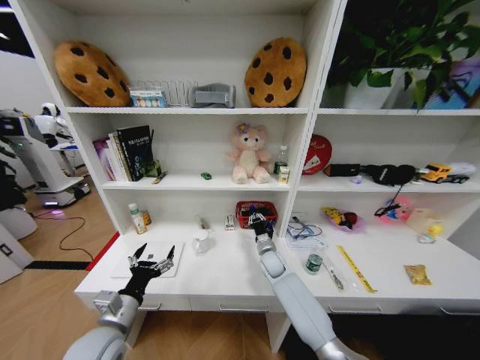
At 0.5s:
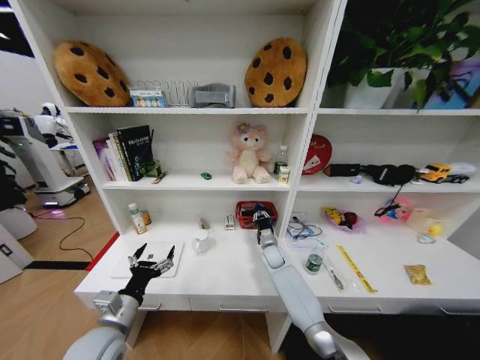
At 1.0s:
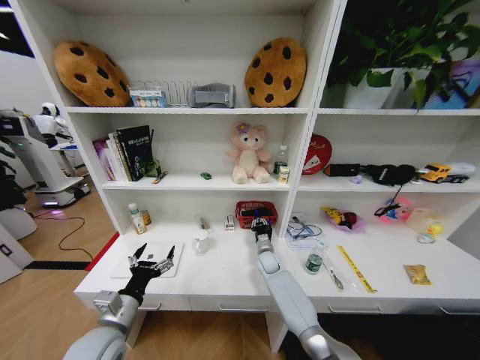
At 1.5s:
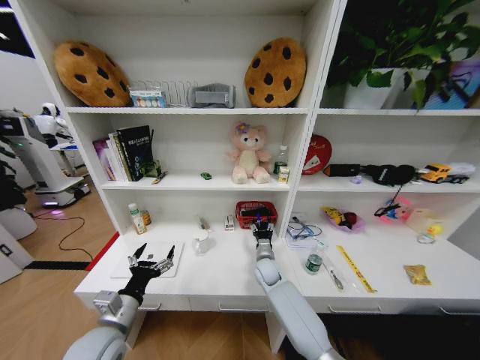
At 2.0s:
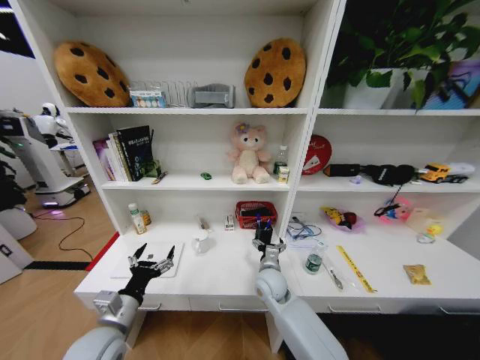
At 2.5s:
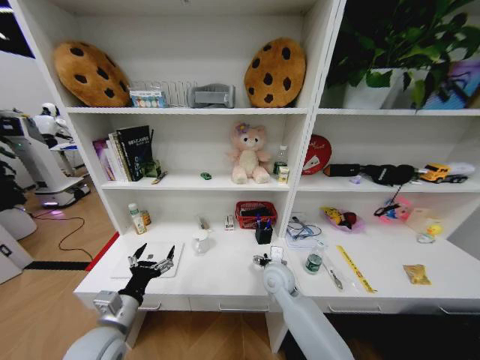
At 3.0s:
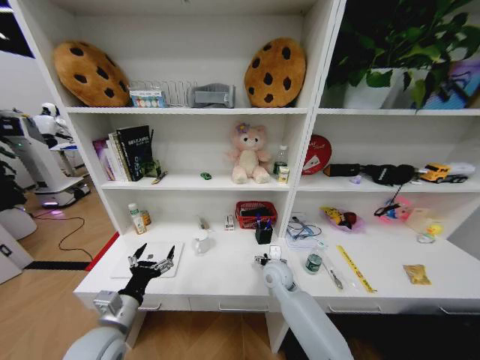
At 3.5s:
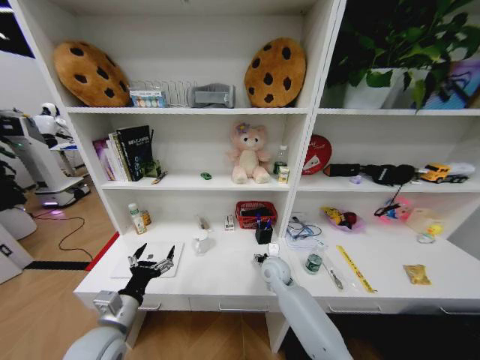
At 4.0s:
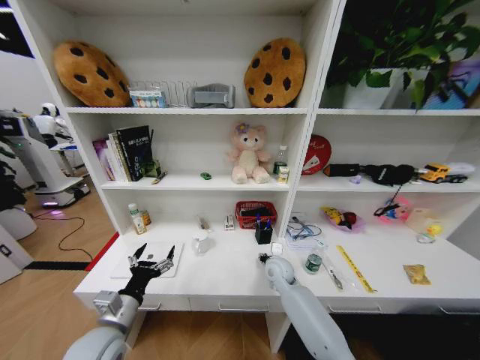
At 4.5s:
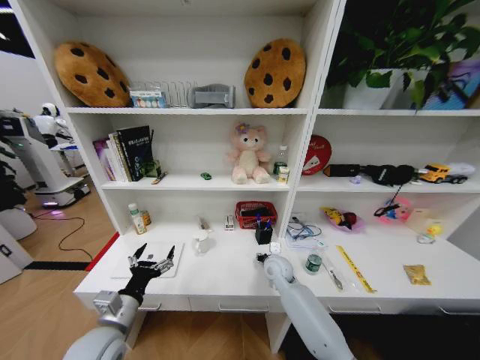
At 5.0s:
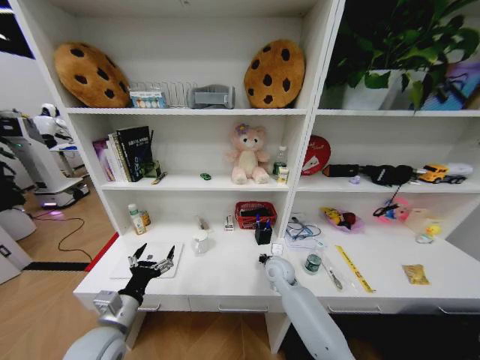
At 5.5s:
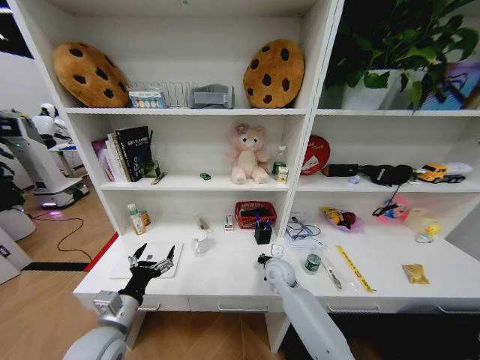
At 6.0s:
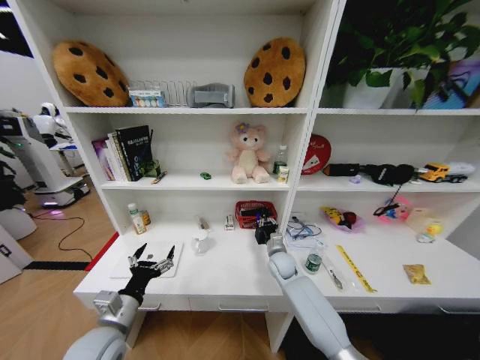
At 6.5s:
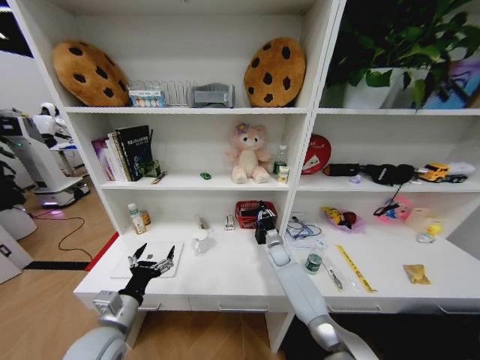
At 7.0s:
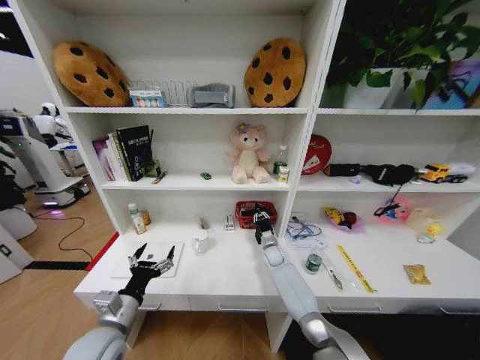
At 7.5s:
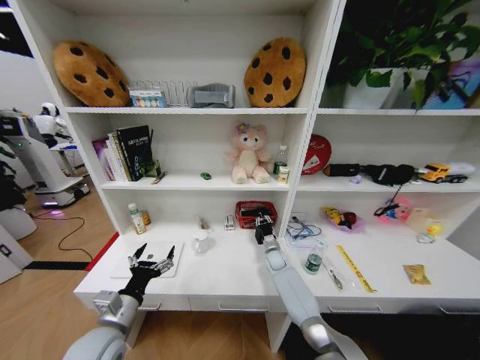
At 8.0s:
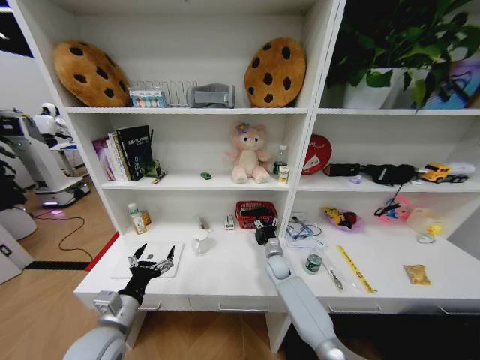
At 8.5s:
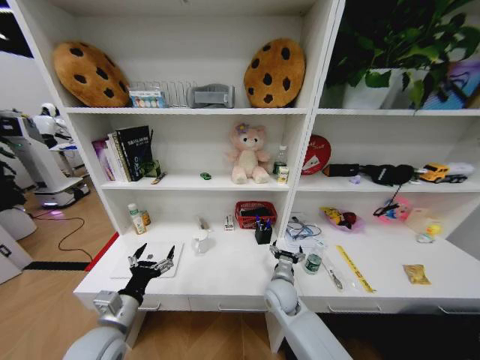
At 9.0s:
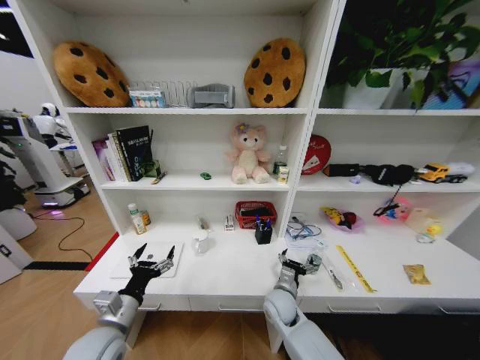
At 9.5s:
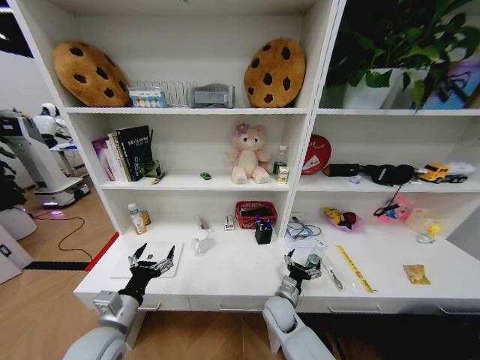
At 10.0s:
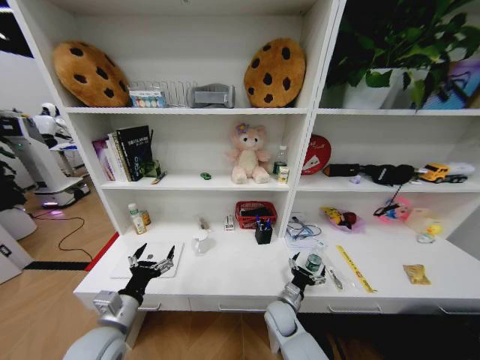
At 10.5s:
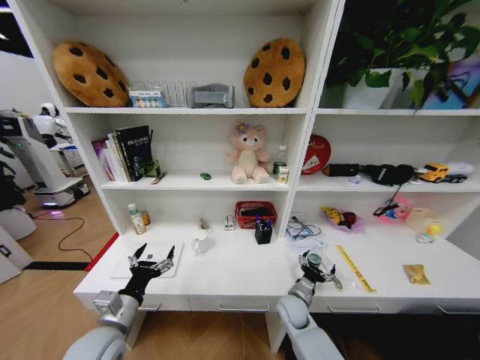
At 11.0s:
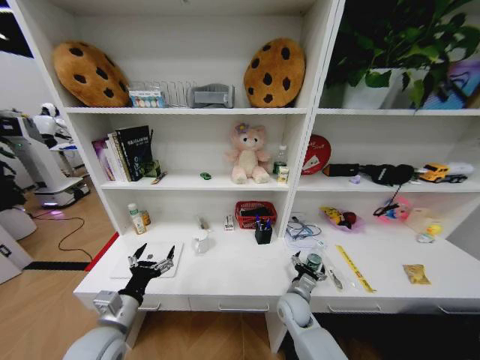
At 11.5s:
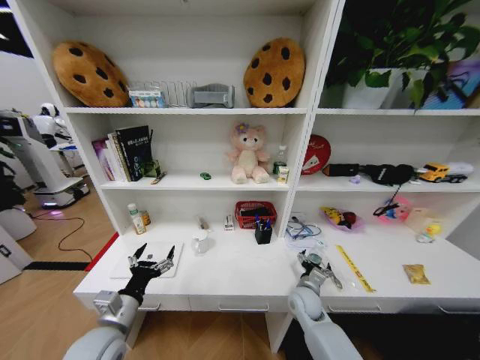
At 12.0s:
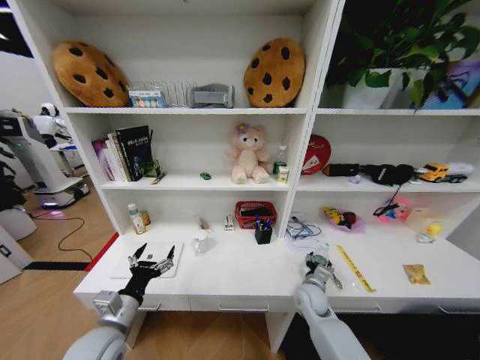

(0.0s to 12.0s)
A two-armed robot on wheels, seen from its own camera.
Task of the whole recording: Organize the objects on the table.
0.0s - 2.0s: The right gripper shifts about 10 cm backward, and opens up.
2.0s - 4.0s: The right gripper travels forward by approximately 5 cm, and closes its fingers.
4.0s - 6.0s: The right gripper closes.
6.0s - 8.0s: The right gripper opens its fingers.
8.0s - 10.0s: The right gripper travels backward by about 15 cm.
10.0s - 12.0s: The right gripper shifts some 10 cm to the right and upward.

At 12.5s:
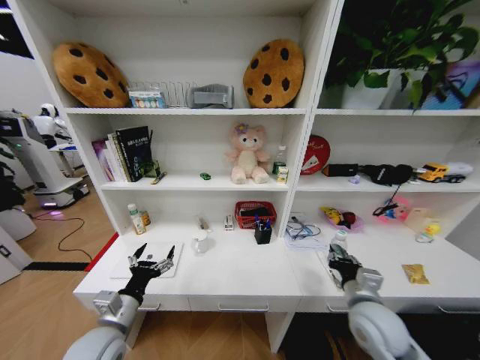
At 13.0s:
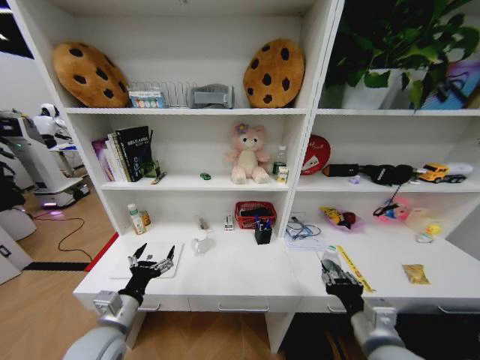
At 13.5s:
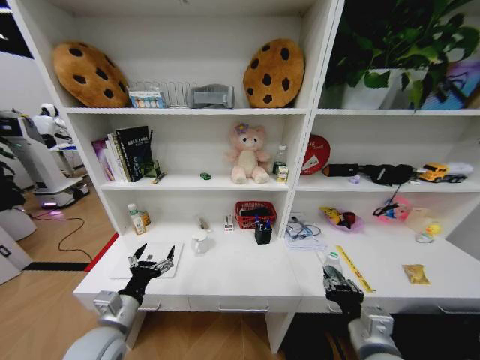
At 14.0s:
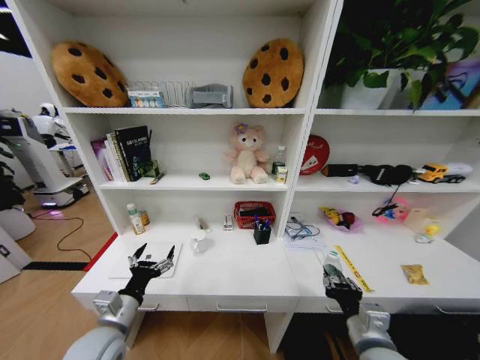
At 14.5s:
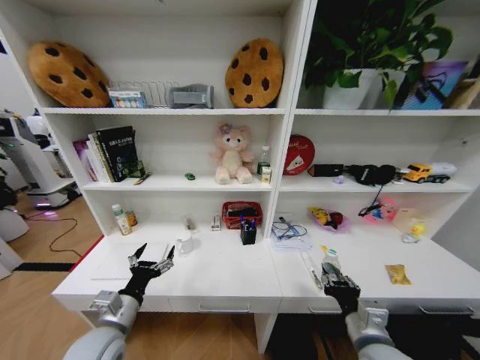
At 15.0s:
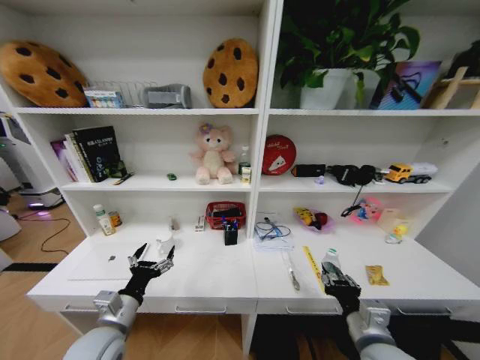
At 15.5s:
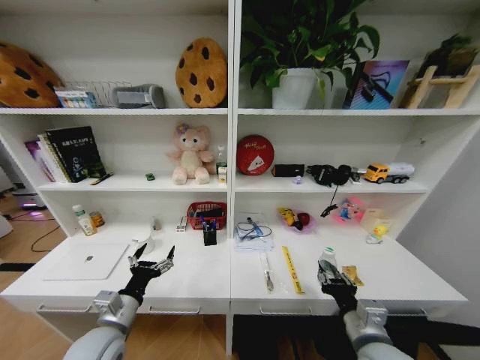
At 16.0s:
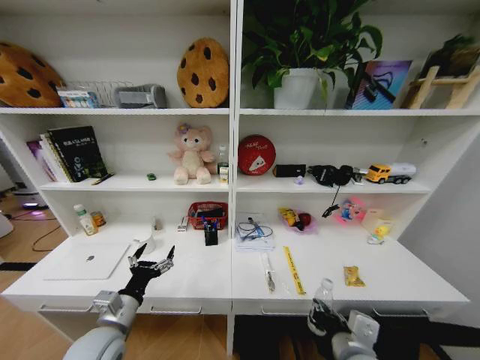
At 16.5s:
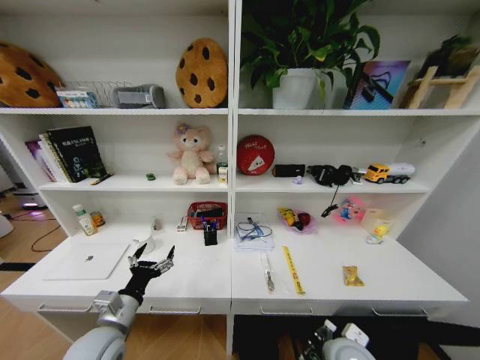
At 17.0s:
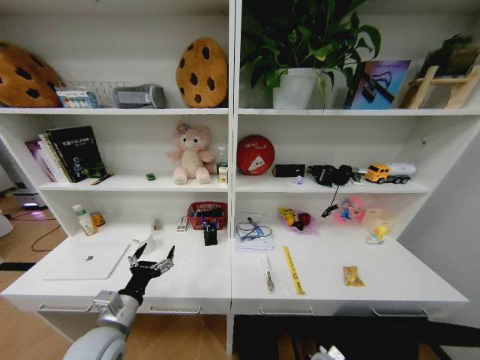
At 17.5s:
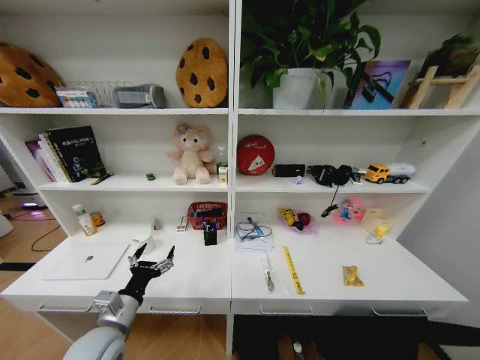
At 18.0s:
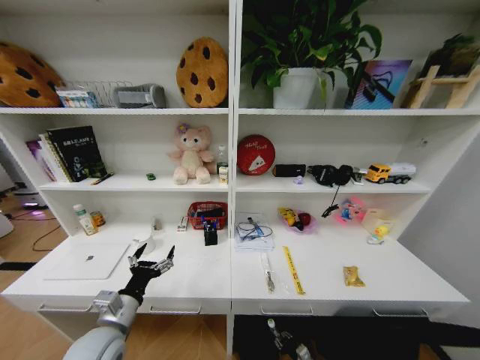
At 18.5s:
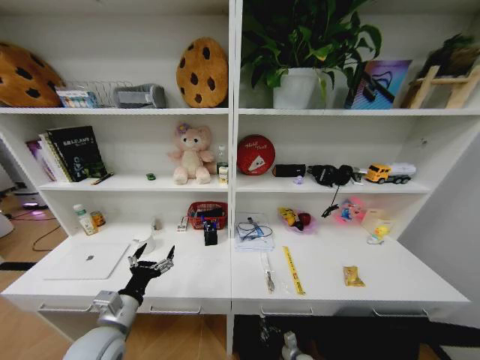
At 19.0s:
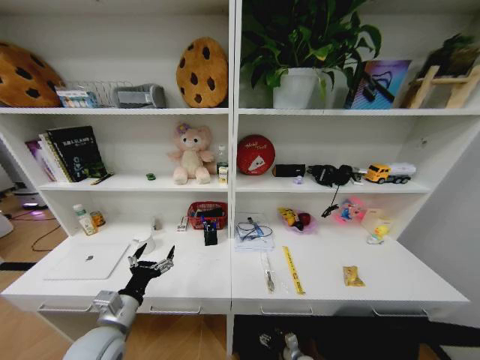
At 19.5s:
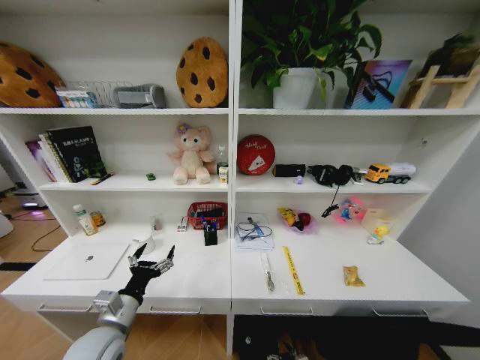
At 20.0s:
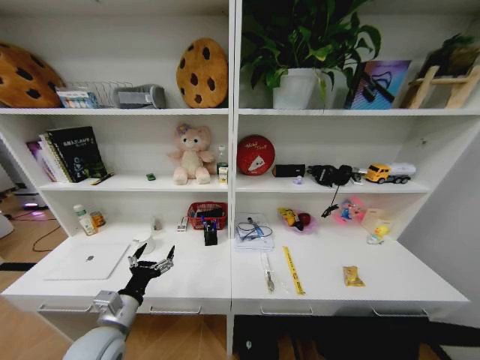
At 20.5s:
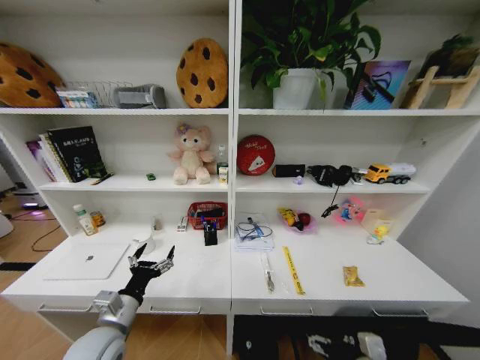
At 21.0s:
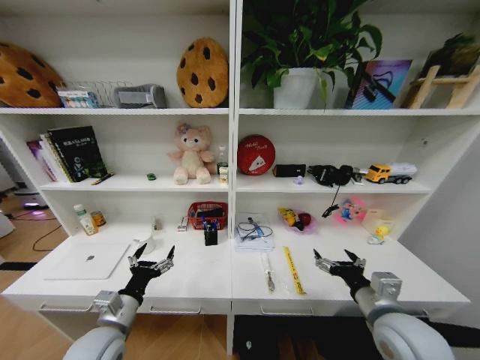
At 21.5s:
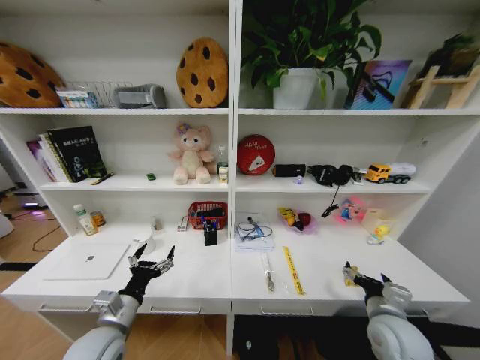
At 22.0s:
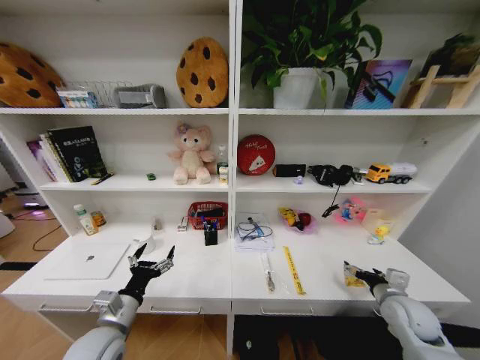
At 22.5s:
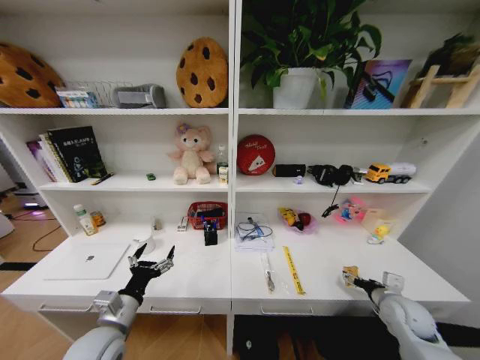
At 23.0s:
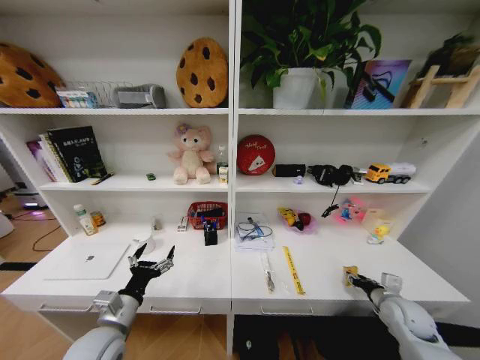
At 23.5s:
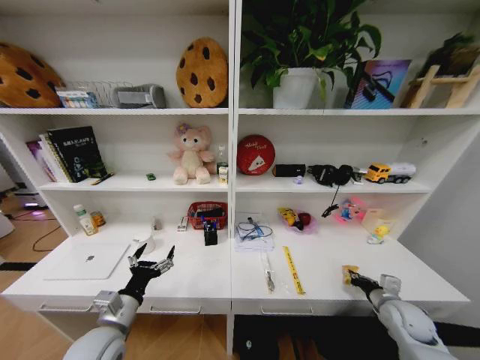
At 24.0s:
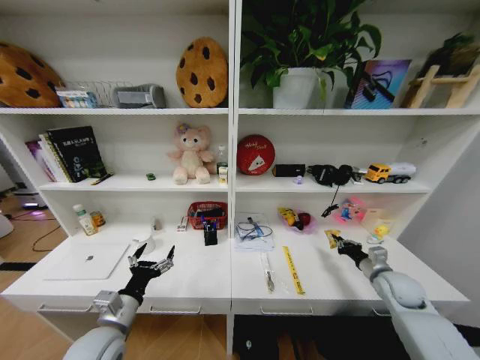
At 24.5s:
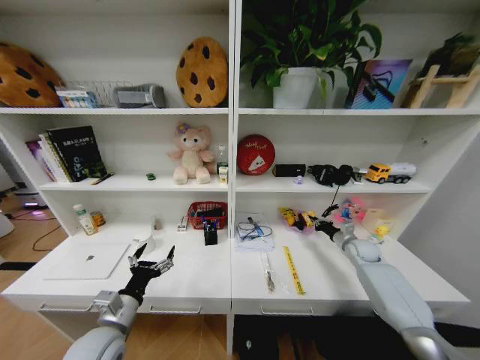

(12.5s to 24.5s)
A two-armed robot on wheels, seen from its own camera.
Task of the whole recording: Organize the objects on the table.
12.5s - 14.5s: The right gripper is displaced backward by some 10 cm.
14.5s - 16.5s: The right gripper ends up some 5 cm from where it was.
16.5s - 18.5s: The right gripper is displaced downward by about 40 cm.
18.5s - 20.5s: The right gripper travels upward by roughly 40 cm, and opens up.
20.5s - 22.5s: The right gripper moves forward and to the right, approximately 20 cm.
22.5s - 24.5s: The right gripper heads forward, covering approximately 20 cm, and closes.

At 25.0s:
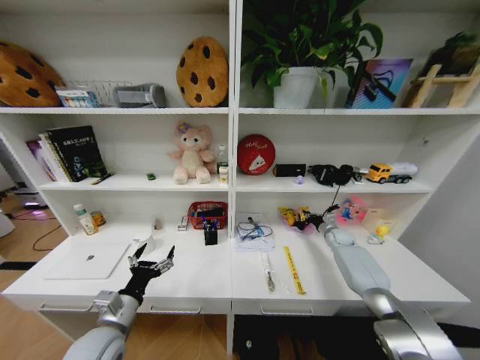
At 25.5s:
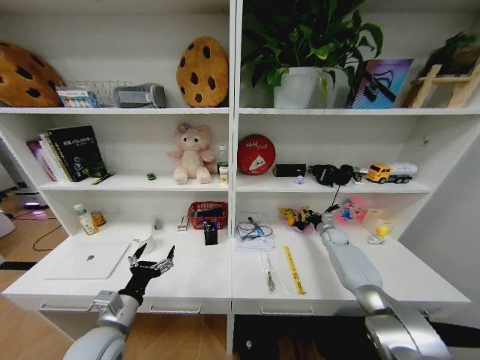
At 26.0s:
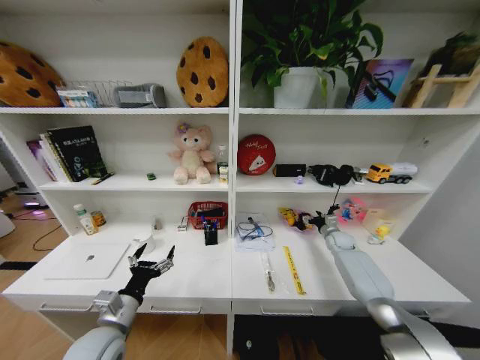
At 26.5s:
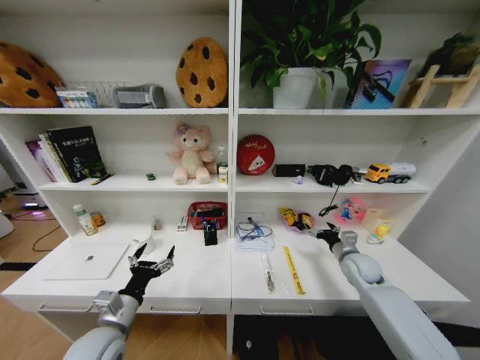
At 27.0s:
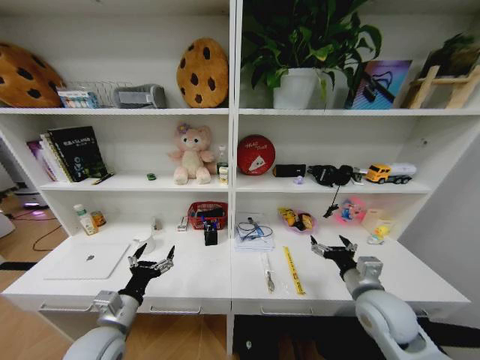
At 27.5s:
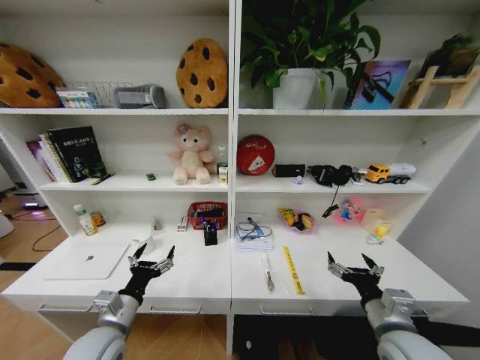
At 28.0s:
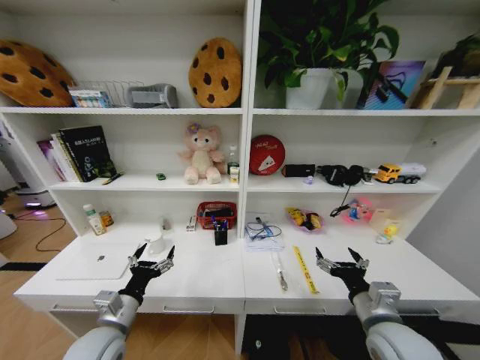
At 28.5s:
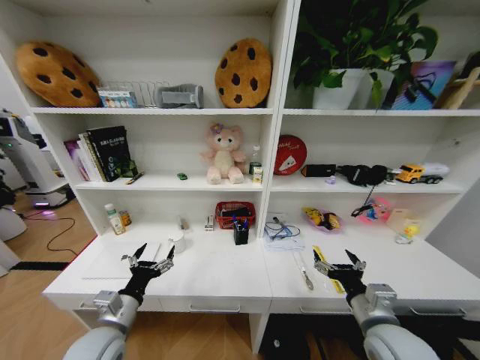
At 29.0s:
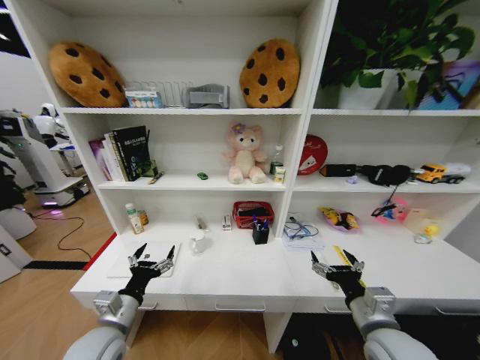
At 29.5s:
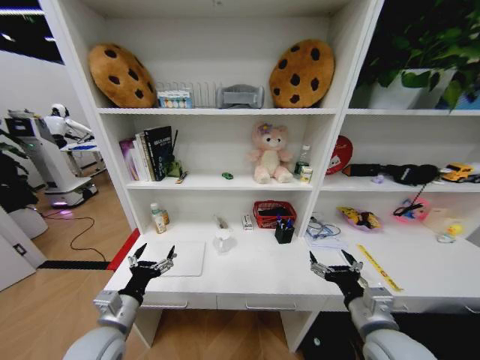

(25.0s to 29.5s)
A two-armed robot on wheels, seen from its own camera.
Task of the whole recording: Organize the objects on the table.
25.0s - 27.0s: The right gripper moves backward and to the left, some 35 cm, and opens.
27.0s - 29.5s: The right gripper goes roughly 5 cm backward.
